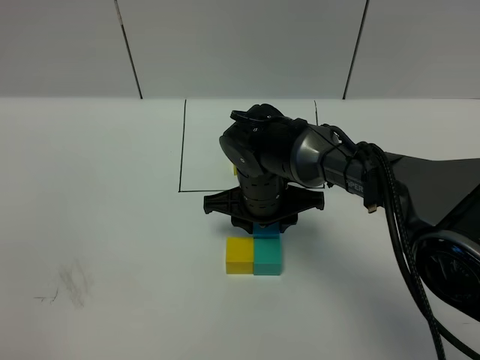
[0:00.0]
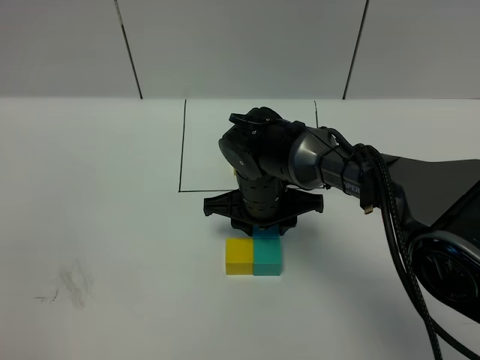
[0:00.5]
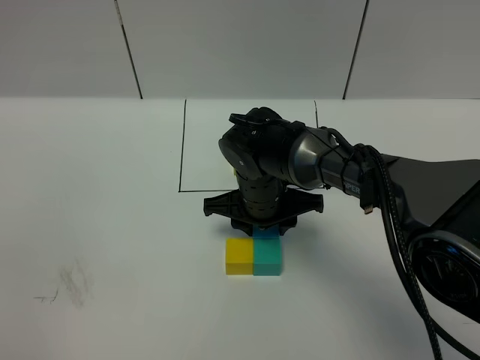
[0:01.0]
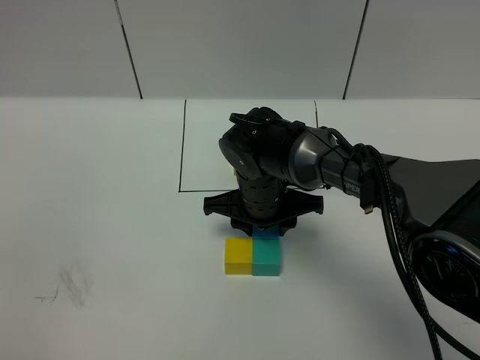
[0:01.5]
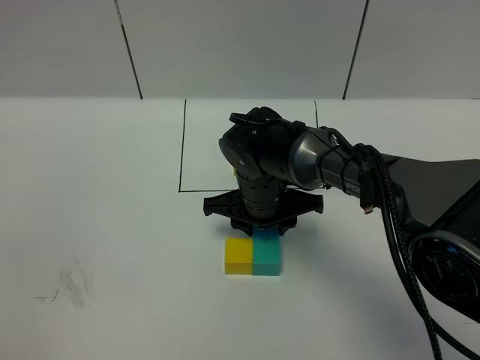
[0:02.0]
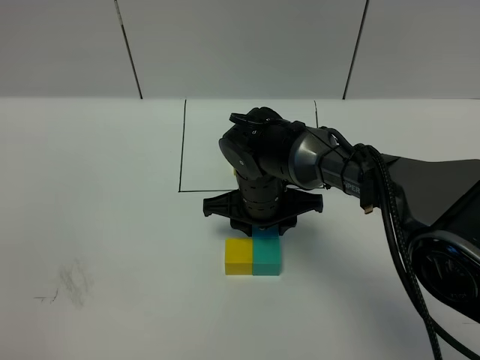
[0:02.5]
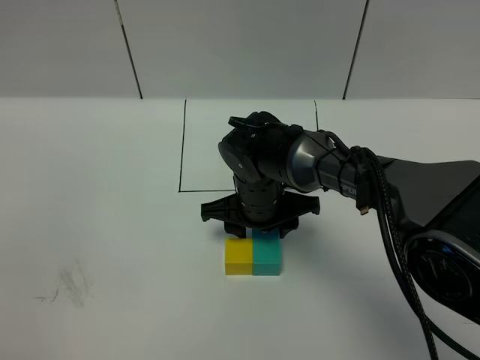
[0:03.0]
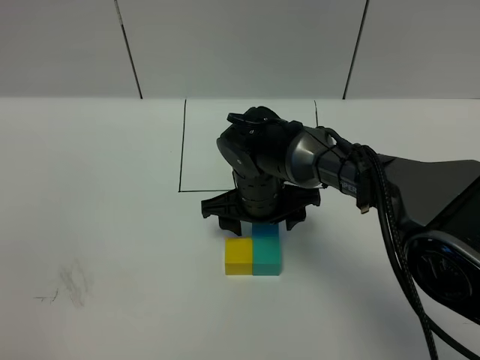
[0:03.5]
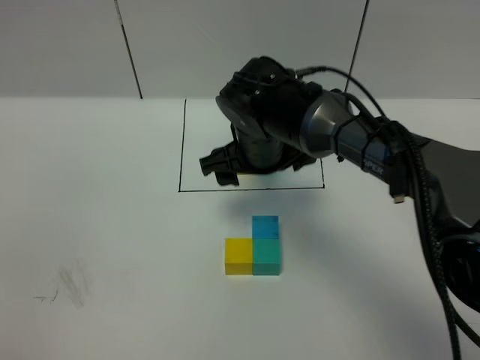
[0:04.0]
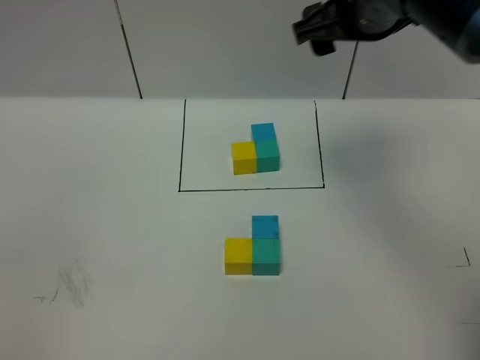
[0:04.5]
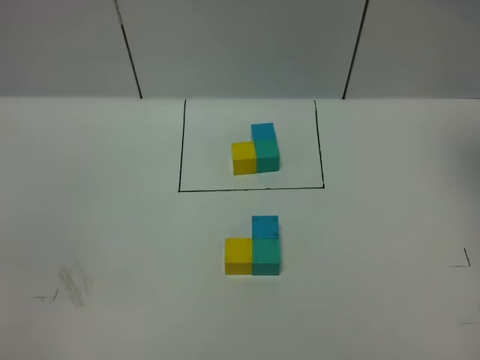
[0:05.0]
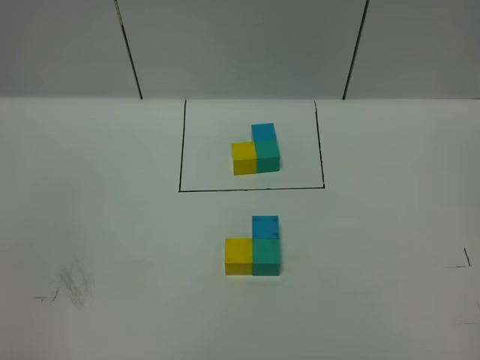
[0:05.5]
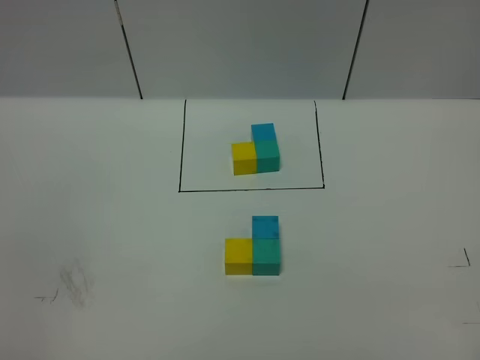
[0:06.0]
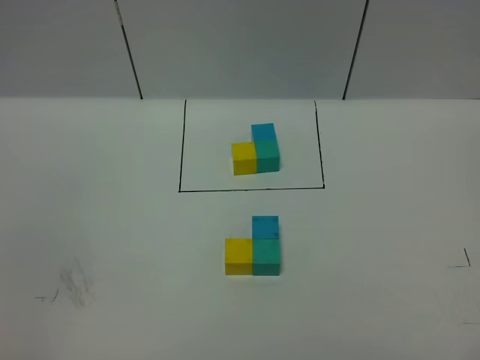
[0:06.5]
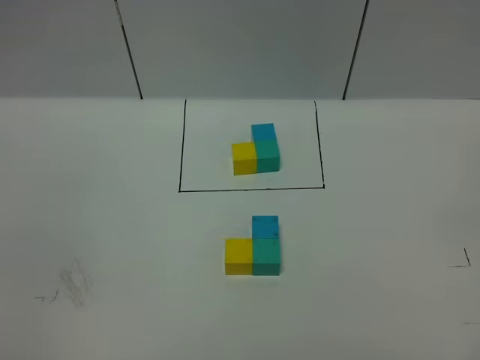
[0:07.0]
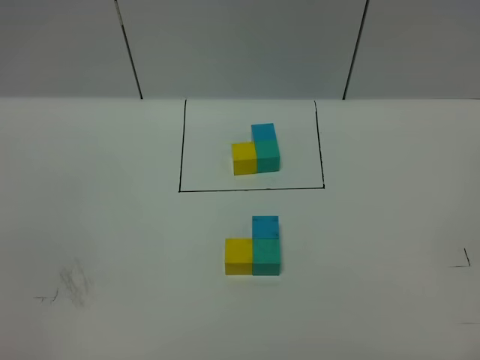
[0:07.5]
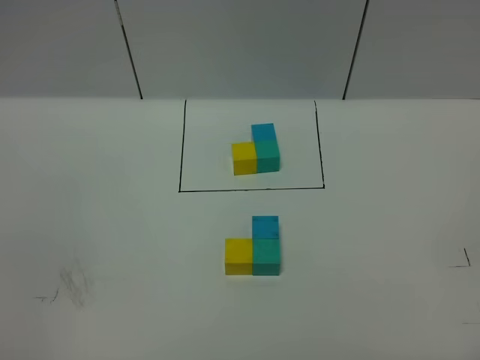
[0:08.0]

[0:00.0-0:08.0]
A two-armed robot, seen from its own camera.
Task of the whole recording: According to the building block template in front, assemble the scattered blocks together.
Step, 0:00.0 to 0:03.5: Put the blue cube on the behind of the green cube.
0:00.0 to 0:02.0: Both grippers stay put.
0:02.0 to 0:04.0: The right gripper travels upward by about 10 cm, and opens its fingers.
0:04.0 to 0:06.0: The right gripper goes approximately 50 cm backward, to the right and upward.
